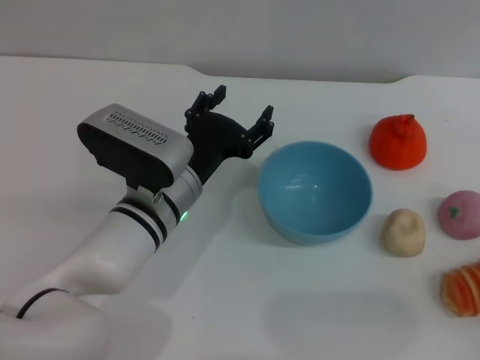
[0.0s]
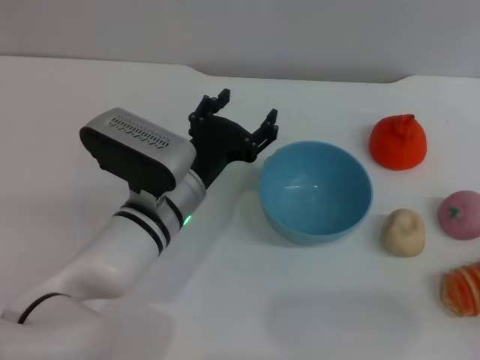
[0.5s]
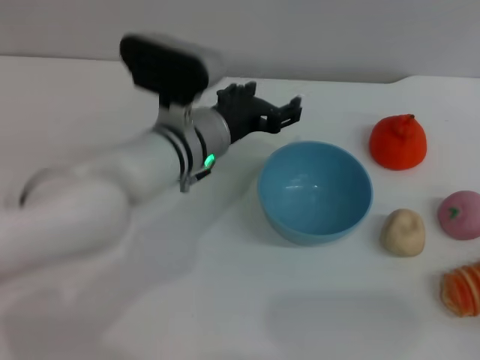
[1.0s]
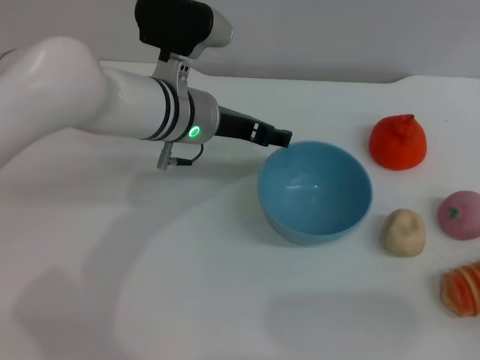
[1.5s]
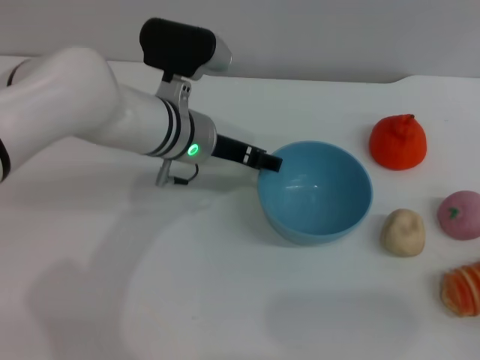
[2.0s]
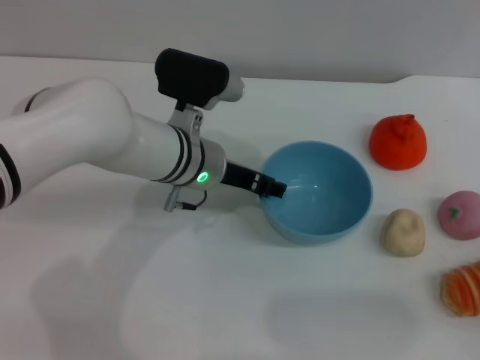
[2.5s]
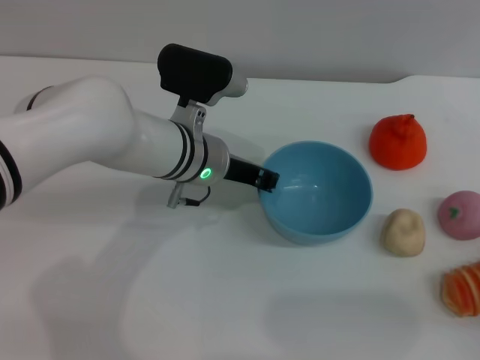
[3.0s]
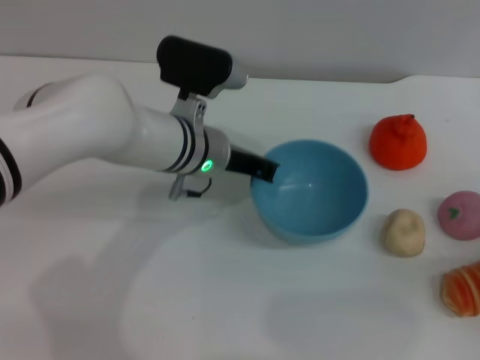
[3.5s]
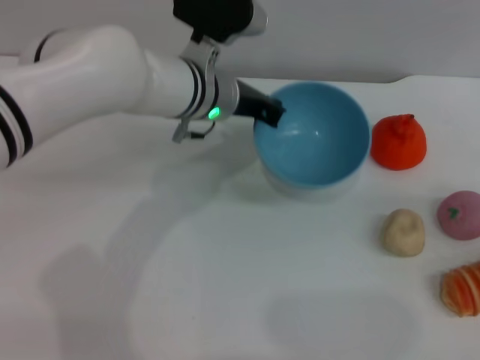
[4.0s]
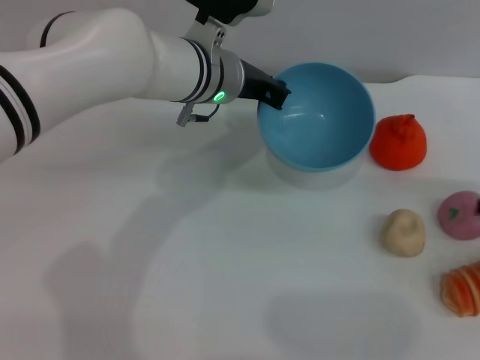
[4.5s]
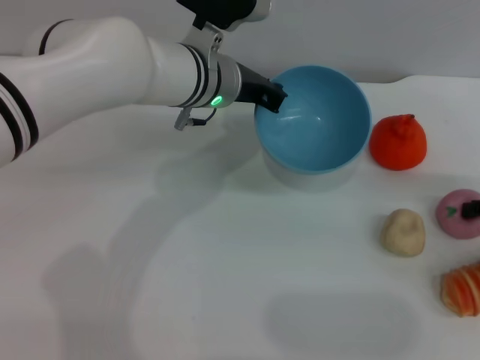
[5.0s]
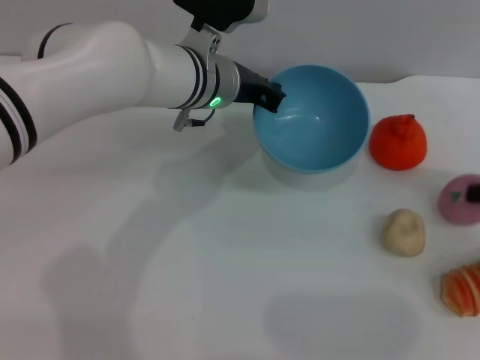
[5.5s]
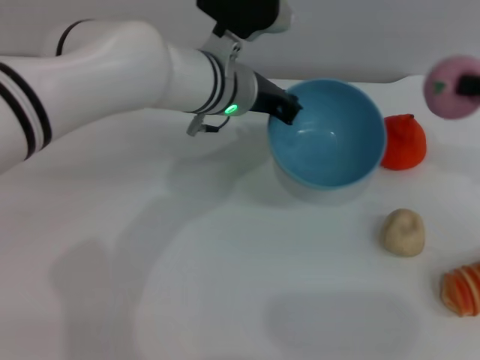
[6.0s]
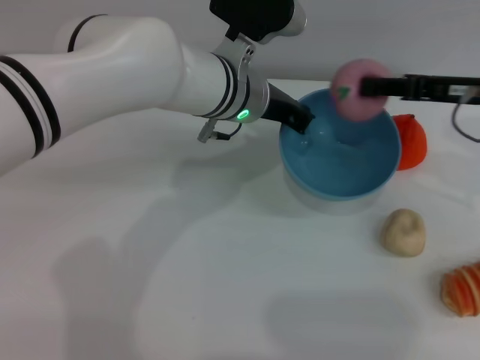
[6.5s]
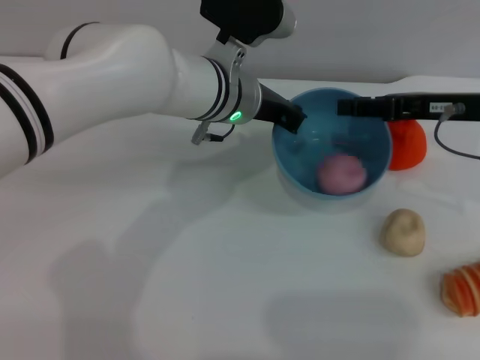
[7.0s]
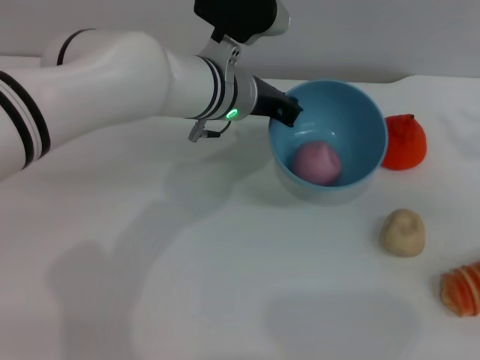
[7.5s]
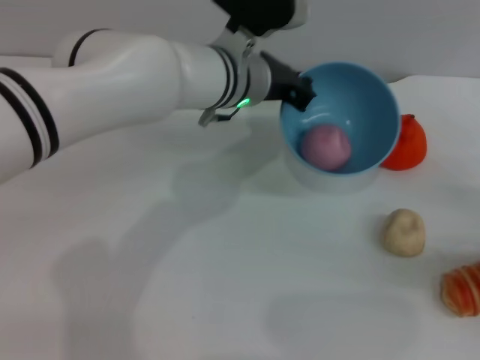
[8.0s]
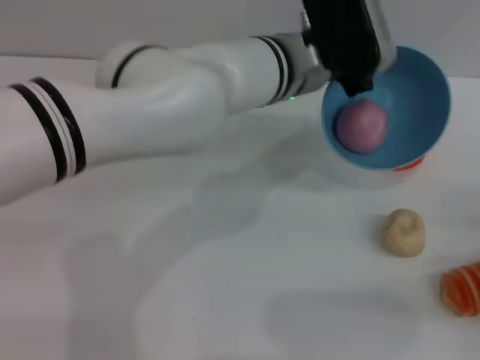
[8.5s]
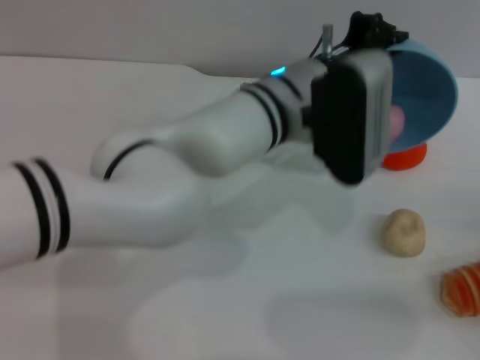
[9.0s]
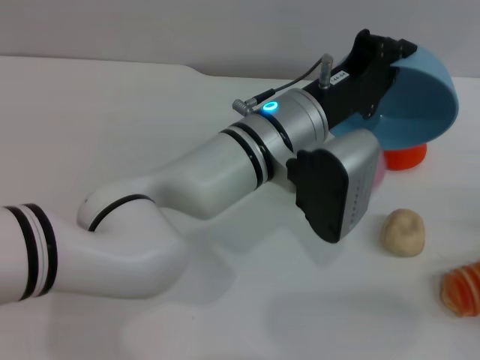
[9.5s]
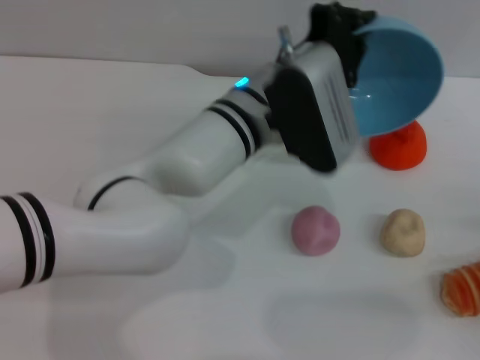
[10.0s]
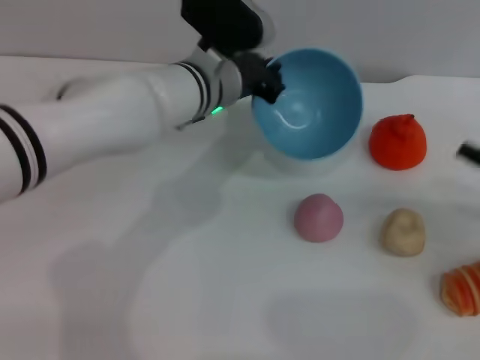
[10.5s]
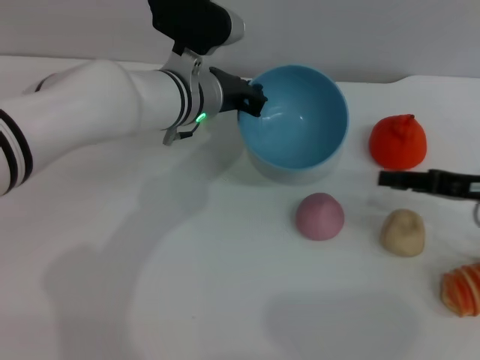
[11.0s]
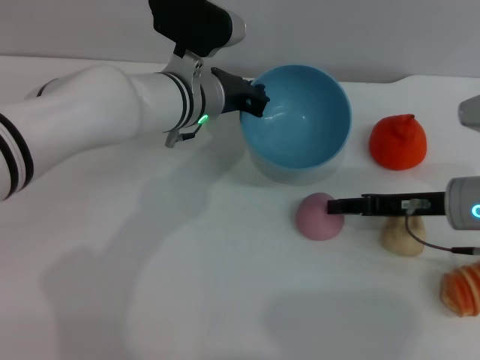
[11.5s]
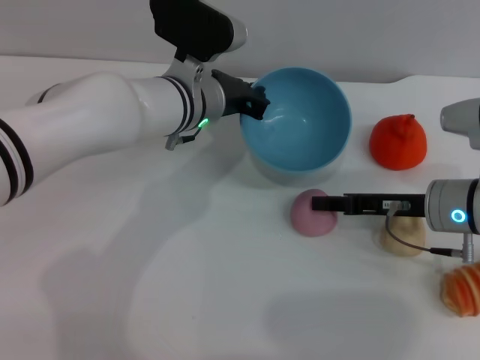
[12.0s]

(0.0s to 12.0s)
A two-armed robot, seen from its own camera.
Task of the whole recording: put the peach into the blue bowl and pour it out repeatedly.
Step, 0.0s - 4.0s: Pick up the bowl with the left gripper.
Step, 4.5s - 5.5s: Pick up the peach with the right gripper.
Step, 6.0s - 7.0s: Place the peach into the bowl.
Step, 7.5s - 10.0s: Pour the peach out of bowl.
0.0s - 2.0s: The left gripper heads forward and upward, covering some 10 cm.
2.0s - 4.0s: The left gripper closes up. The right gripper is displaced upward, to the right and forward by roughly 15 cm.
4.0s - 6.0s: The right gripper travels to the left, upward and forward by some 15 cm, and closes its fingers.
6.0s - 8.0s: The right gripper goes about 15 cm downward and backward, travels to the left and back again, roughly 10 cm each way, and opens.
8.0s - 10.0s: The left gripper heads backward, covering approximately 5 cm; the right gripper moves roughly 5 cm.
10.0s - 12.0s: The left gripper is displaced to the left and forward by some 10 cm. Meanwhile the right gripper heads to the left and forward, covering some 20 cm.

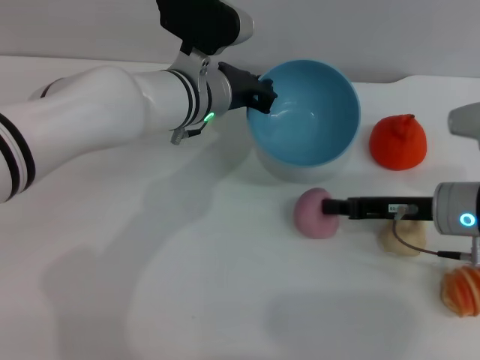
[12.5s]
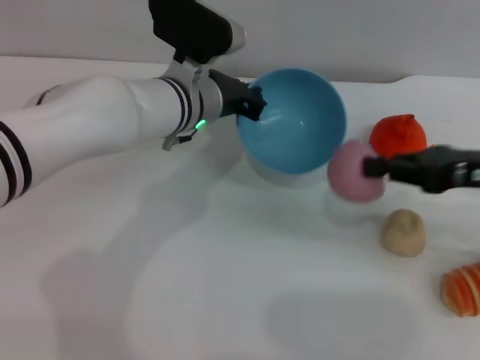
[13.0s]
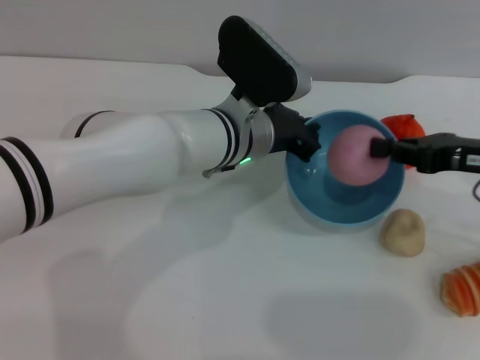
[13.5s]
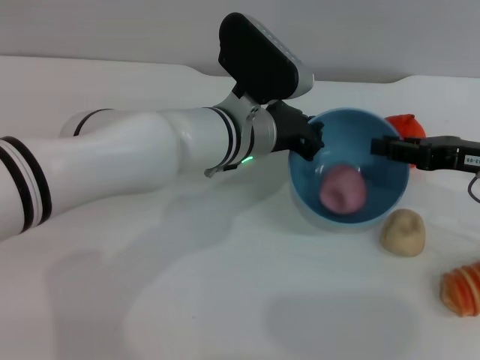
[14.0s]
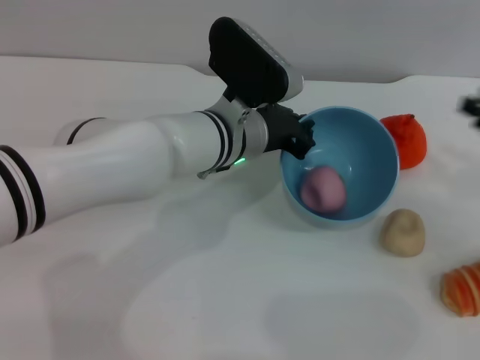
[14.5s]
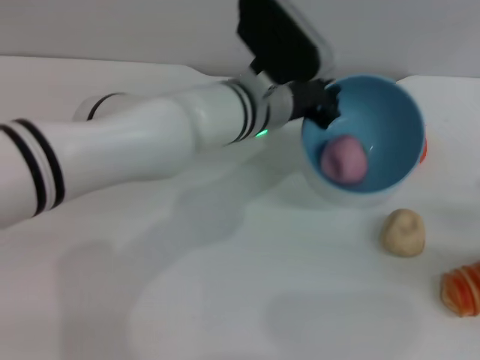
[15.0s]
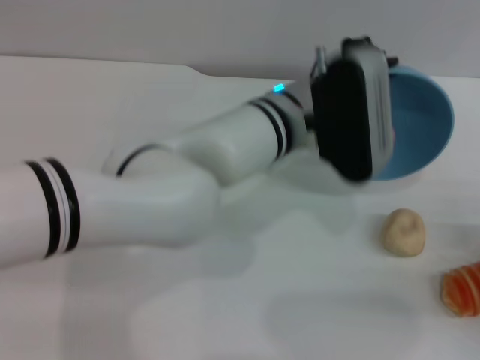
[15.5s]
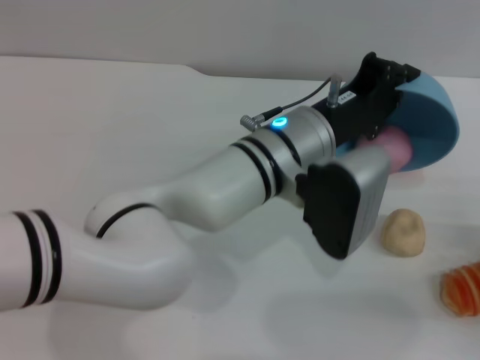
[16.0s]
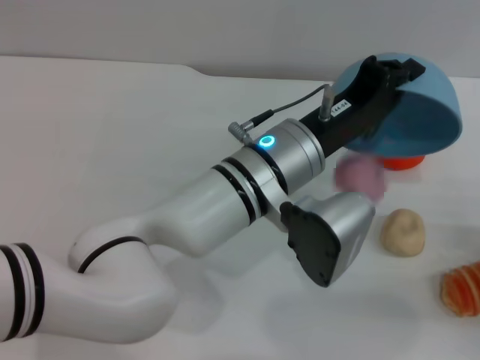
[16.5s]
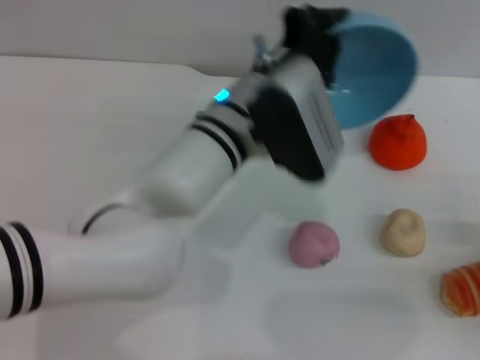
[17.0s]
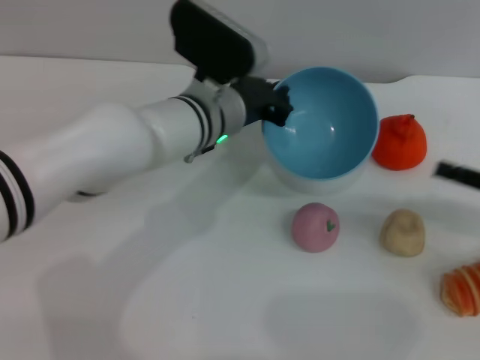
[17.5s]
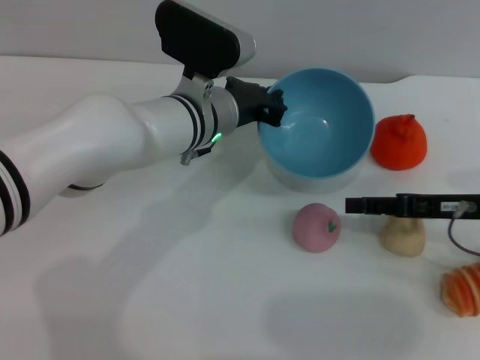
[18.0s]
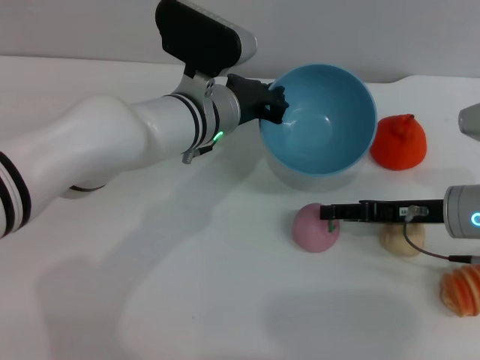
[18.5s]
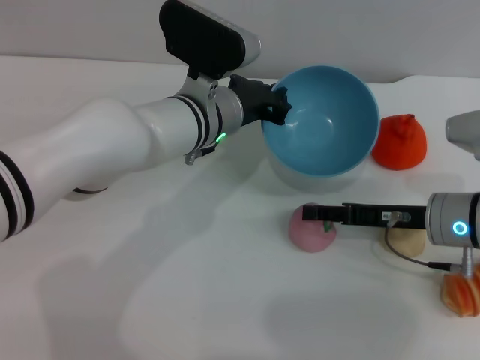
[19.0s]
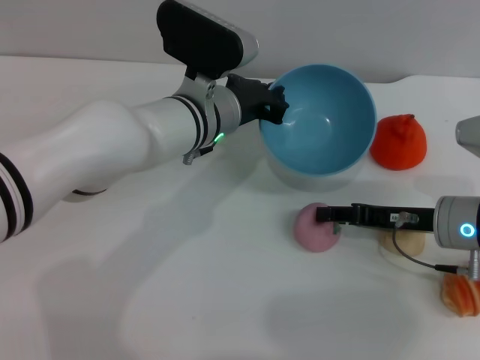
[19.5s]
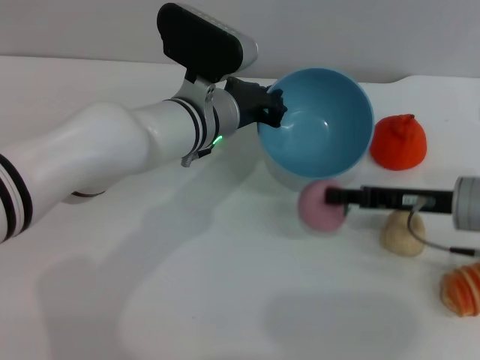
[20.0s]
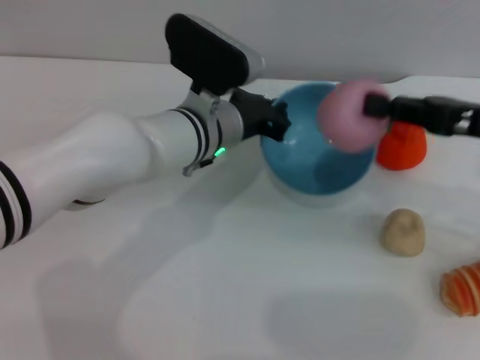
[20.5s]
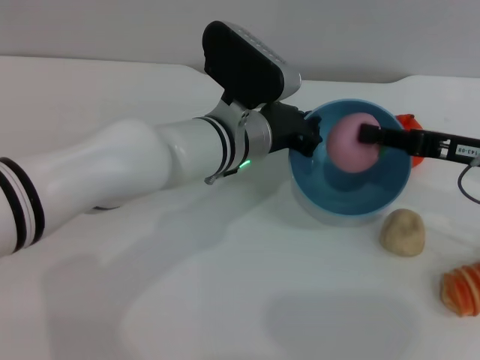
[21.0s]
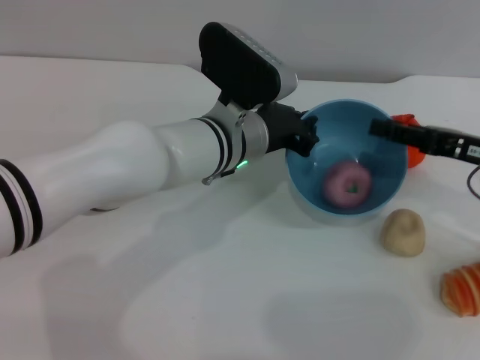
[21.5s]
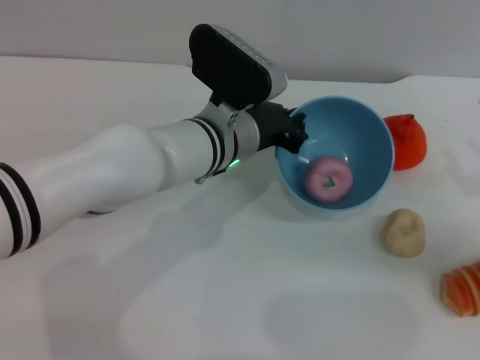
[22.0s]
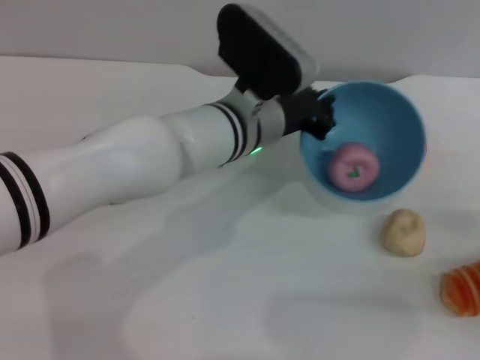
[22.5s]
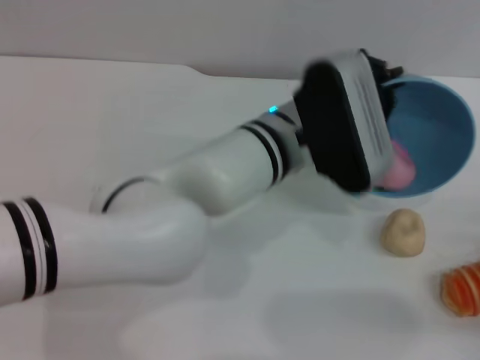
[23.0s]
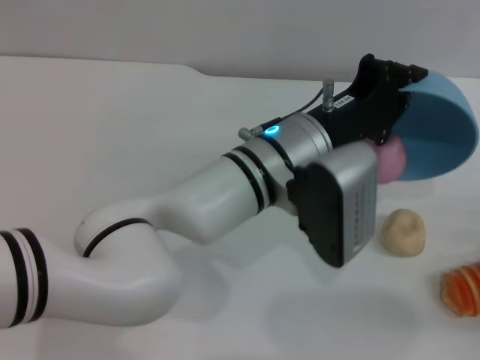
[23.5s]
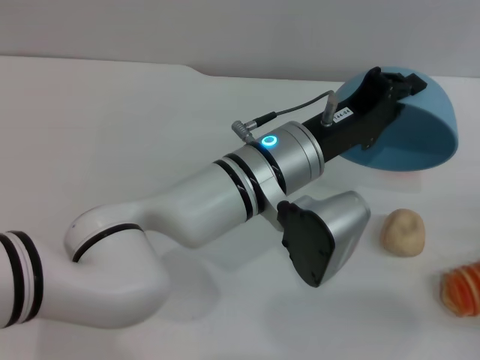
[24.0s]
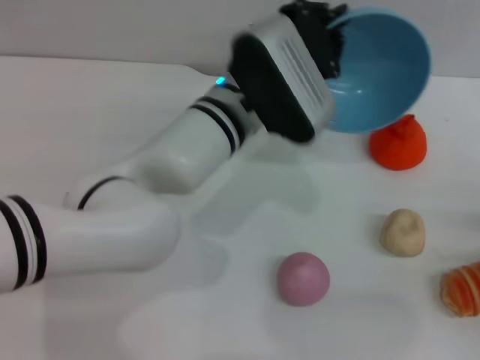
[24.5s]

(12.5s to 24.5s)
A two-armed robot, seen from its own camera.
Task of the whole recording: put the peach into the blue bowl and pour it out repeatedly.
Step, 13.5s - 14.0s: Place the peach into the bowl.
Step, 14.5s - 16.5s: Pour the peach out of bowl.
Step, 17.0s - 20.0s: Pick up the peach with the right gripper.
Step, 20.5s - 21.5s: Place the peach into the bowl.
12.5s - 14.5s: The right gripper heads to the right and upward, covering some 15 cm, and opens, while the left gripper ends up about 5 cm from where it was.
14.5s - 16.5s: The right gripper heads downward and backward, covering approximately 15 cm; the left gripper travels backward by about 5 cm.
16.5s - 18.5s: The right gripper shifts some 15 cm to the left and forward; the left gripper goes approximately 10 cm forward and to the left.
18.5s - 20.5s: The right gripper moves upward, some 10 cm, and closes its fingers.
20.5s - 22.5s: The right gripper is displaced downward, backward and to the right by about 20 cm, and opens up.

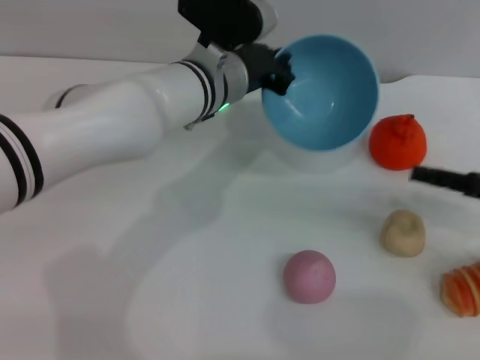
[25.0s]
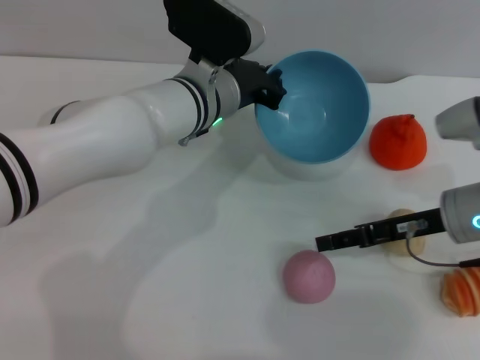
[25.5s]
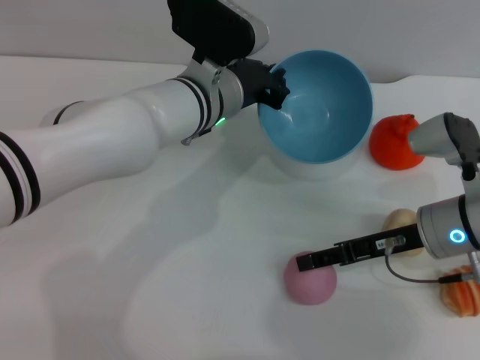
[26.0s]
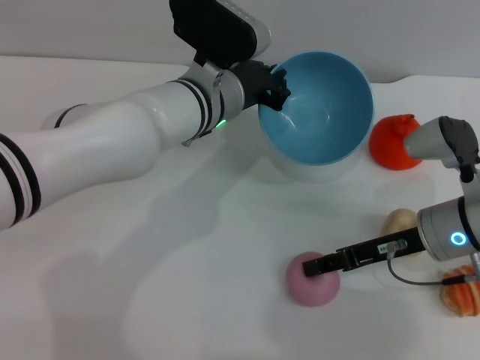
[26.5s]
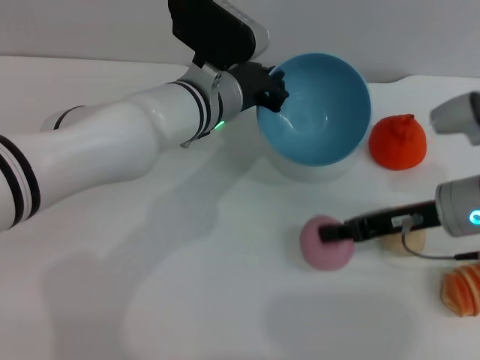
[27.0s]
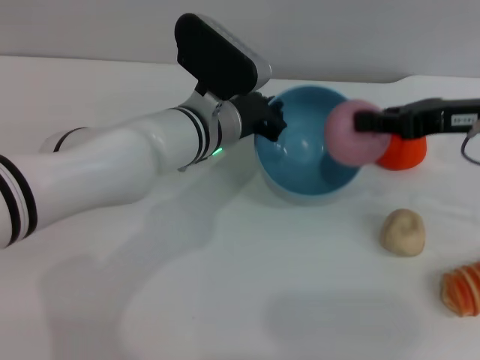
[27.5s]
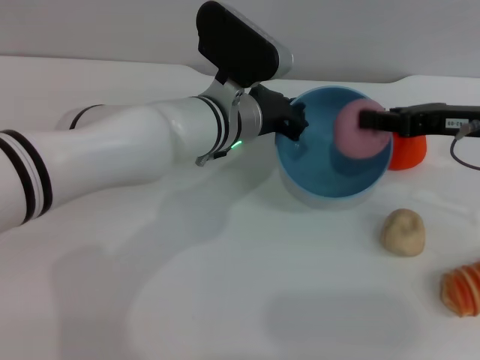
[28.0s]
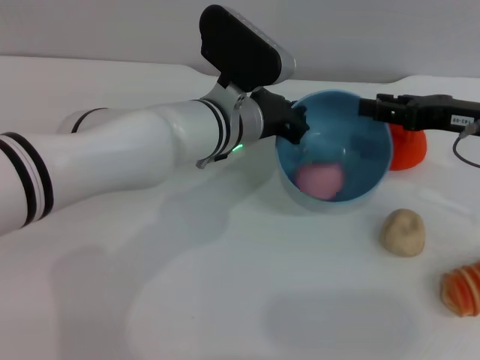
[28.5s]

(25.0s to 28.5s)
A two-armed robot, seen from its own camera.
Task of the whole recording: put the peach into the blue bowl and pour it out repeatedly.
Step, 25.0s - 27.0s: Pick up the peach with the right gripper.
Step, 27.5s - 28.5s: Place the peach into the bowl.
25.0s - 27.0s: The right gripper goes approximately 10 cm to the left, and closes its fingers.
27.0s - 28.5s: The right gripper shifts roughly 5 cm upward.
